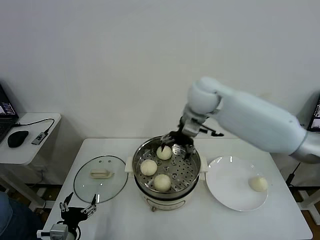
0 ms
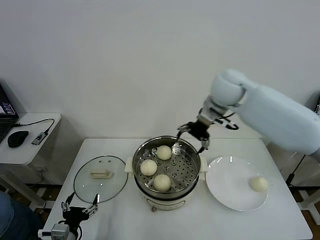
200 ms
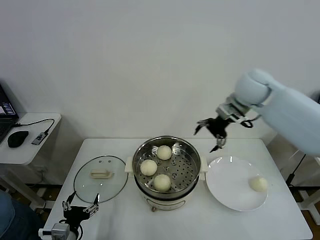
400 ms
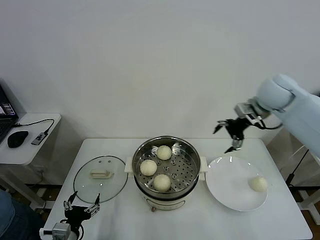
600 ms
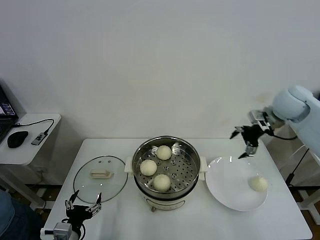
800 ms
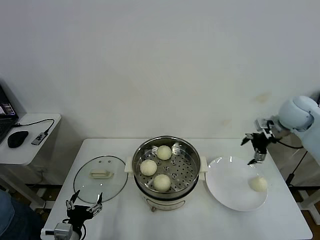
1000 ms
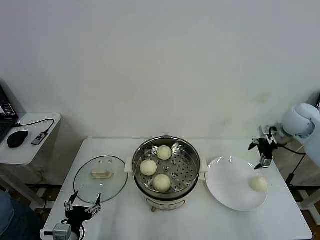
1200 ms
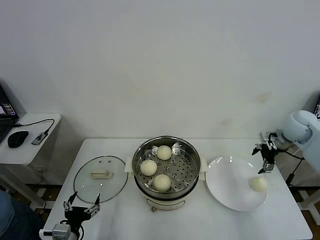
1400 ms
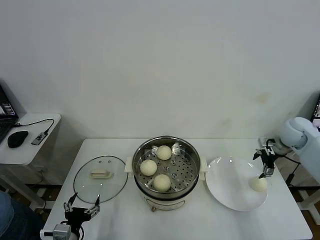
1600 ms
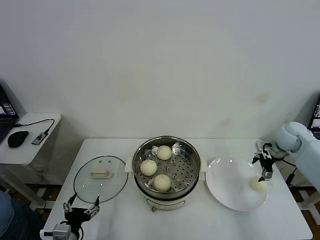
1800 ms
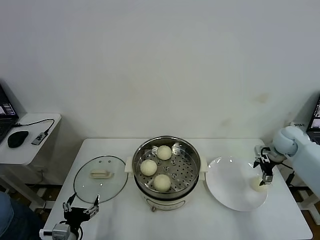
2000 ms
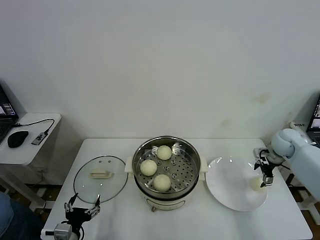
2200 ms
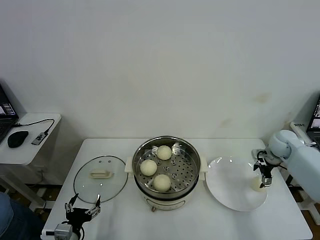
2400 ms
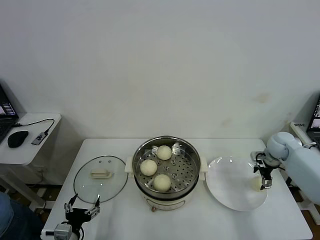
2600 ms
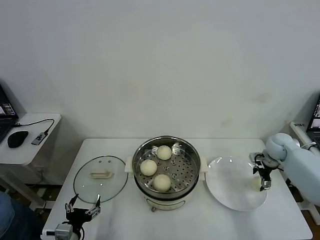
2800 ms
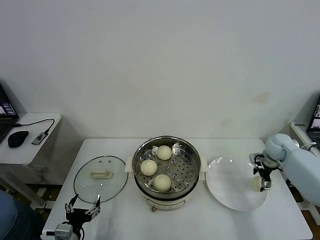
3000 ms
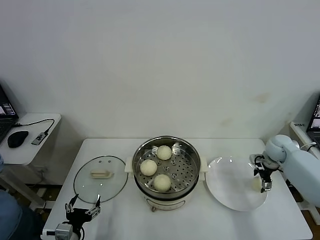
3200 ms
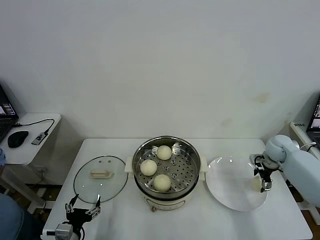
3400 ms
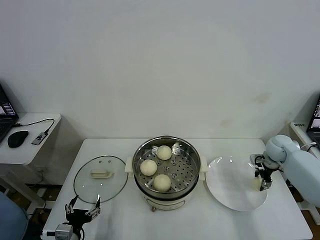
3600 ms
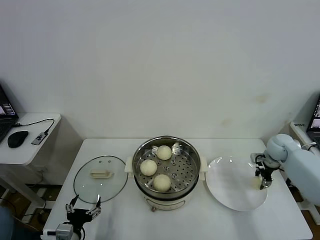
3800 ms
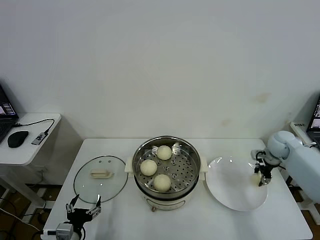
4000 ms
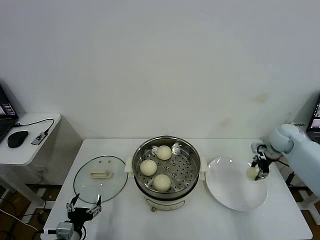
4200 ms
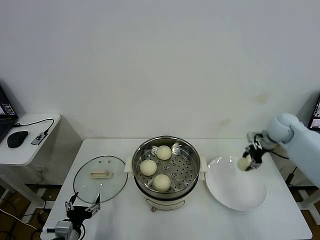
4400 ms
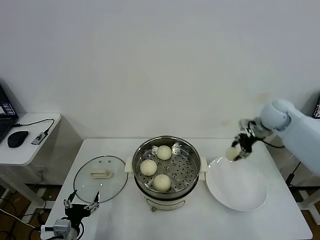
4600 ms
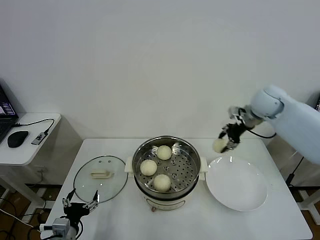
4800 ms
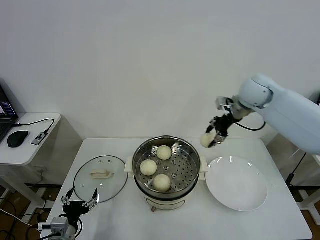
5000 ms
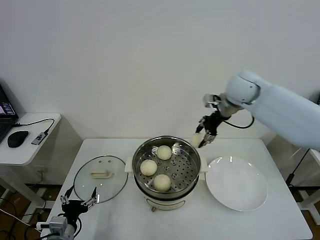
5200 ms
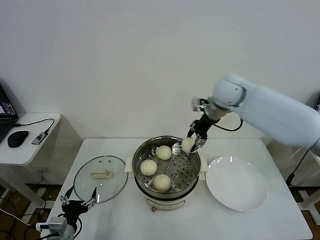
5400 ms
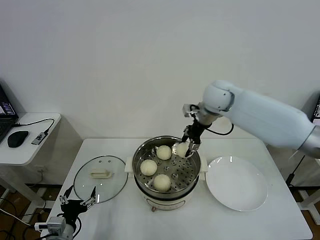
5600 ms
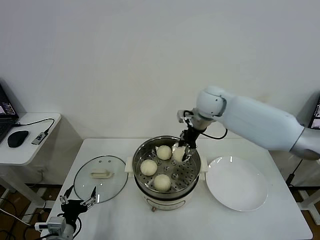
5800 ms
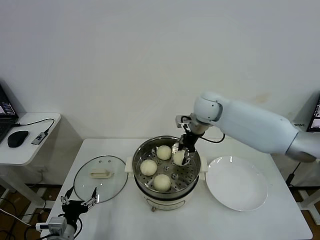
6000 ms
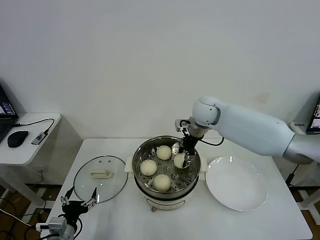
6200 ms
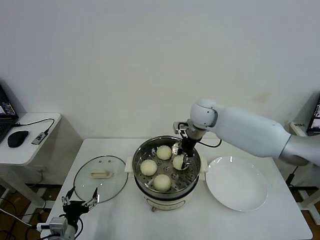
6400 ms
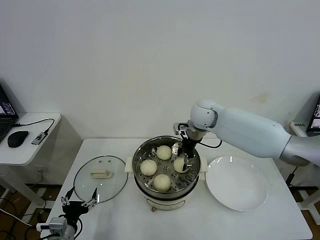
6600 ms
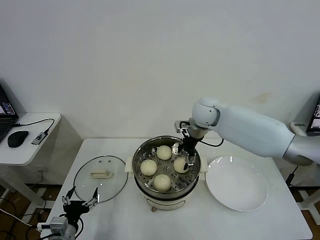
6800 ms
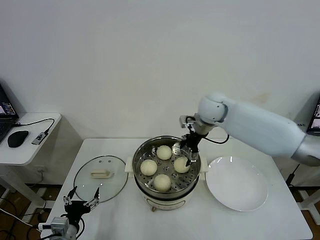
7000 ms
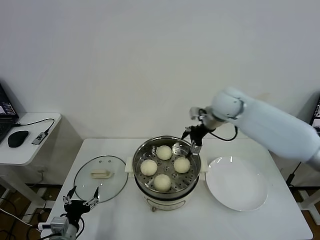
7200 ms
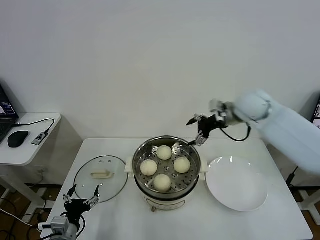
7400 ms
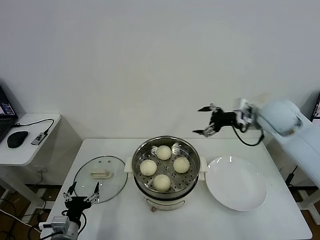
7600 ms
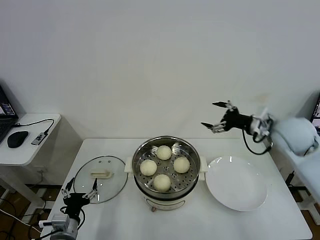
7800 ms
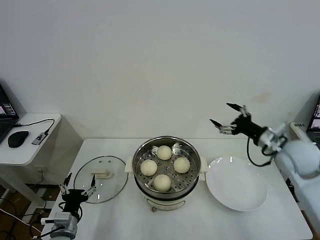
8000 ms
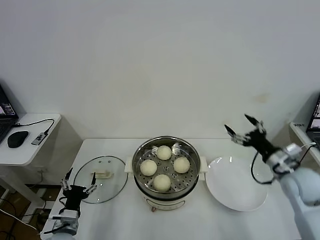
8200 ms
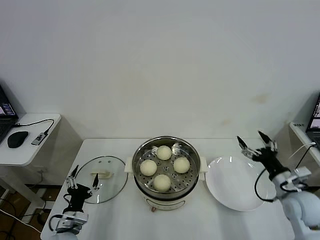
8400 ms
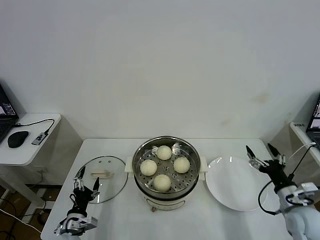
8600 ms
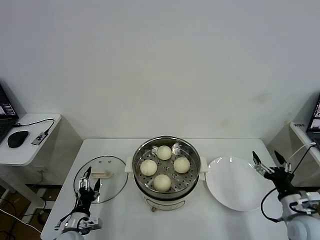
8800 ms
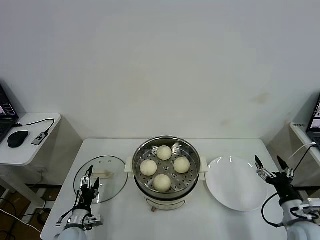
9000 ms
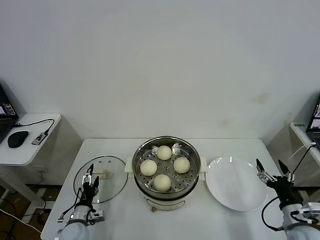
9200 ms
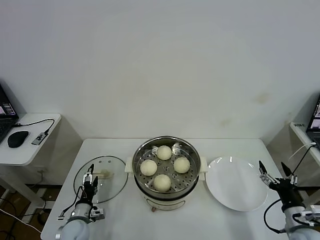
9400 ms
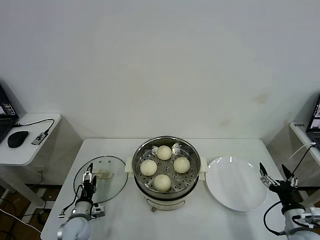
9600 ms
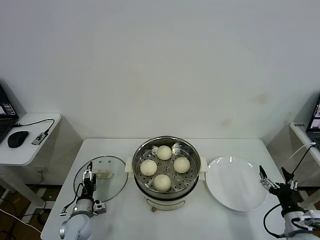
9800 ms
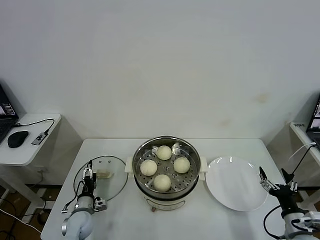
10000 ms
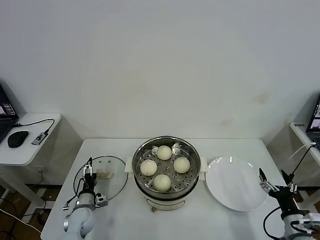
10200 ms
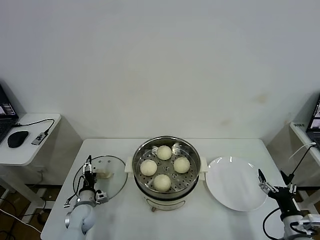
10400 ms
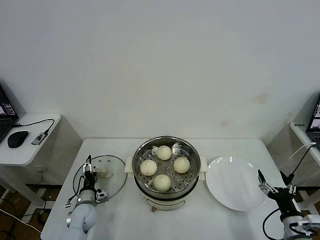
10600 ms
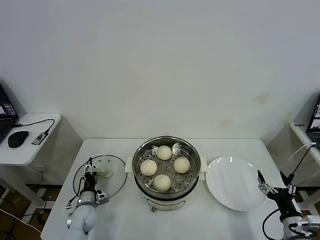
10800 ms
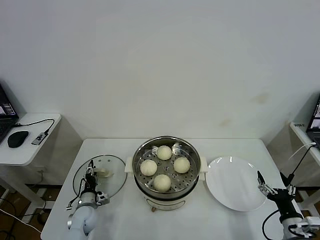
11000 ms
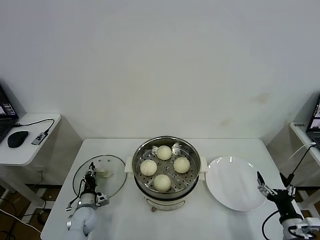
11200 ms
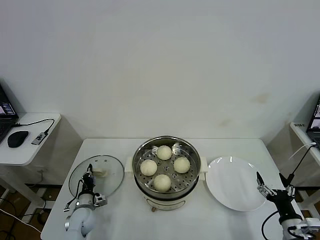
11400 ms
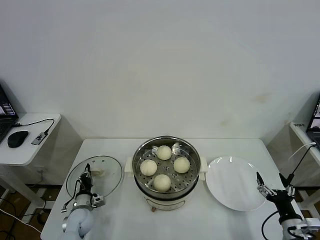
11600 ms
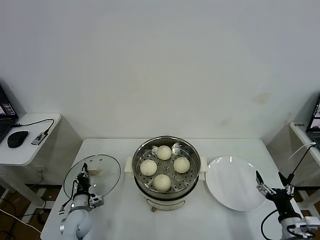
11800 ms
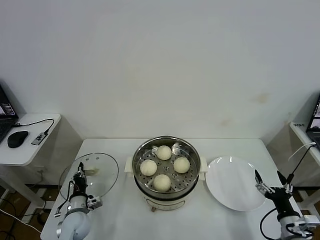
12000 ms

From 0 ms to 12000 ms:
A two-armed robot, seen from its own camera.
Task of the whole recording: take steamed baozi put them in steamer then cover it.
Step, from 0 ms to 3800 ms: Grasp the baozi in the plate with right gripper.
Step, from 4000 ms to 6800 ms: Place the baozi on the steamer with right gripper.
Step, from 7000 ms to 11400 ms: Grasp the pot lid with left gripper.
From 0 ms to 1600 ms: The right gripper shifts approximately 35 cm to the right and downward.
From 1600 ms to 3000 ms: The right gripper goes some 10 cm downward.
From 3000 ms to 4400 ms: The right gripper travels upward by some 10 cm, and closes its fingers.
From 4400 ms to 6000 ms: The right gripper shifts roughly 25 cm to the left.
From 6000 ms to 7600 ms: The right gripper travels to the right and backward by about 20 cm, and opens up.
From 7600 ms to 9000 ms: The left gripper moves downward and forward, some 10 cm; the right gripper moves backward and downward, roughly 35 cm.
From 9000 ms to 10400 ms: The left gripper goes some 10 cm forward.
From 10400 ms to 12000 ms: The left gripper shifts by roughly 5 cm, and closes.

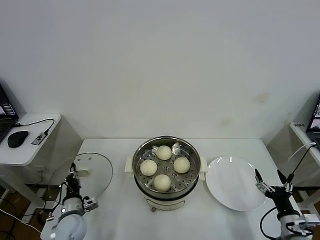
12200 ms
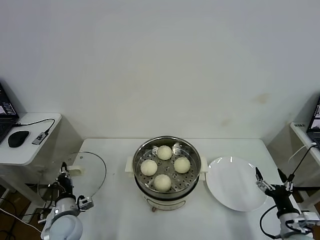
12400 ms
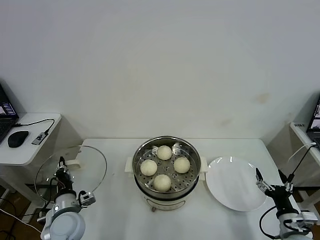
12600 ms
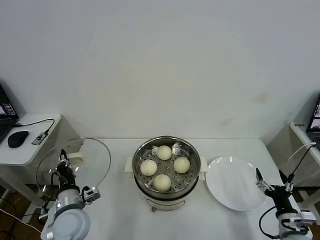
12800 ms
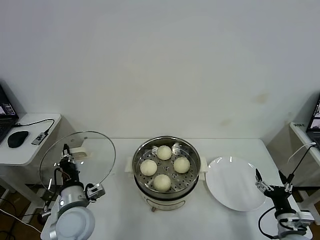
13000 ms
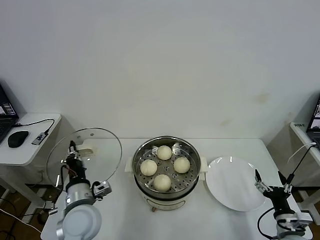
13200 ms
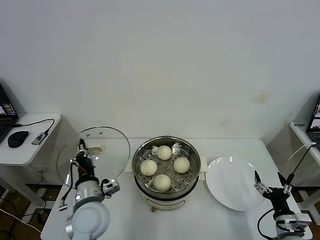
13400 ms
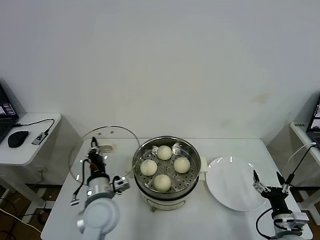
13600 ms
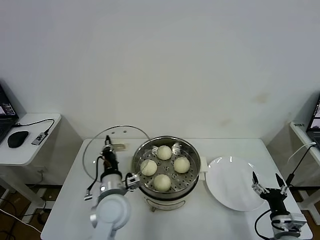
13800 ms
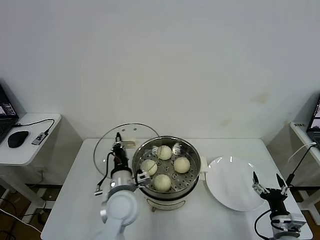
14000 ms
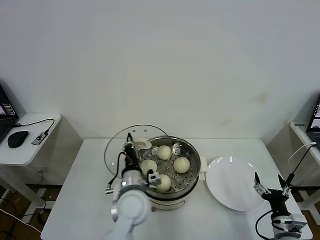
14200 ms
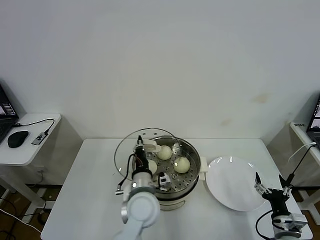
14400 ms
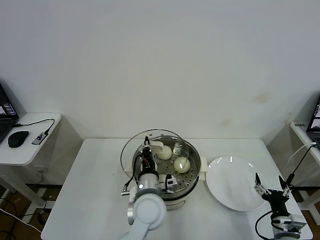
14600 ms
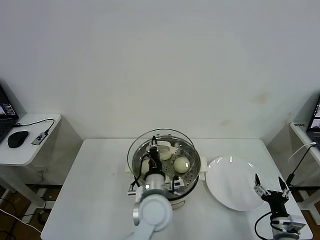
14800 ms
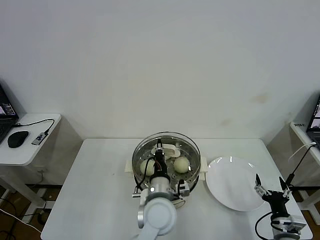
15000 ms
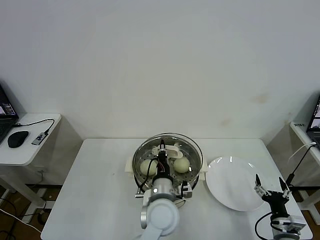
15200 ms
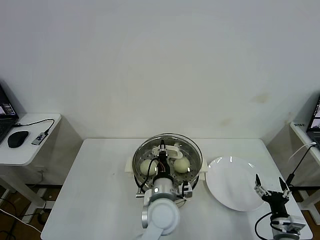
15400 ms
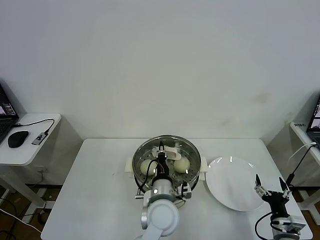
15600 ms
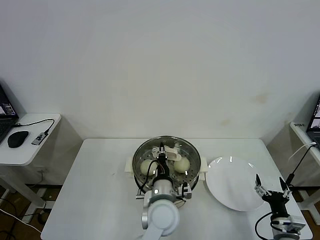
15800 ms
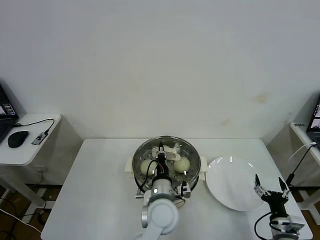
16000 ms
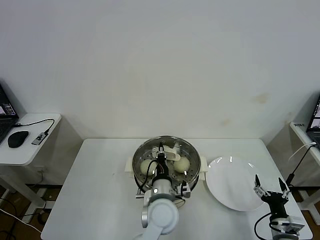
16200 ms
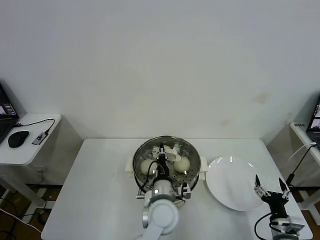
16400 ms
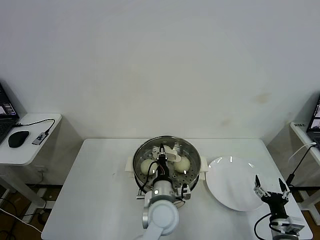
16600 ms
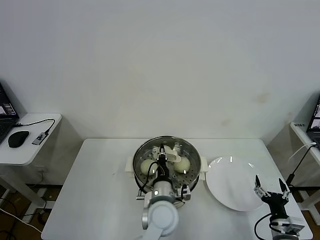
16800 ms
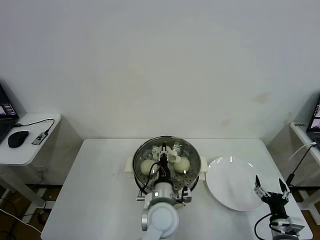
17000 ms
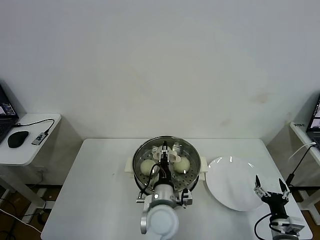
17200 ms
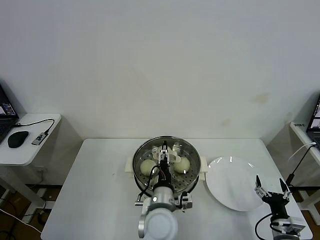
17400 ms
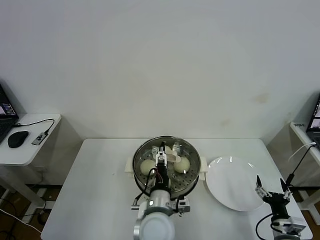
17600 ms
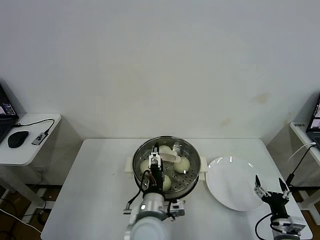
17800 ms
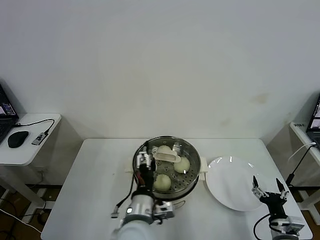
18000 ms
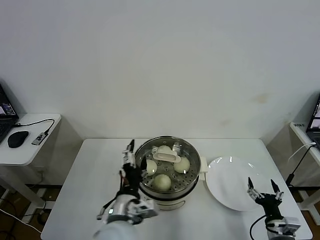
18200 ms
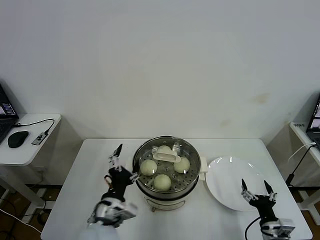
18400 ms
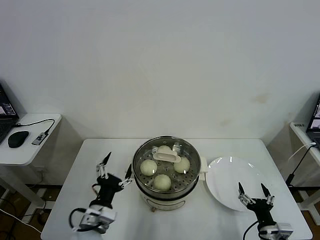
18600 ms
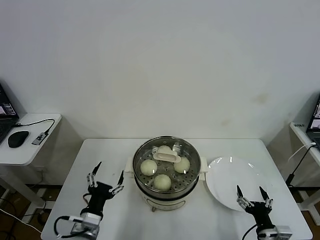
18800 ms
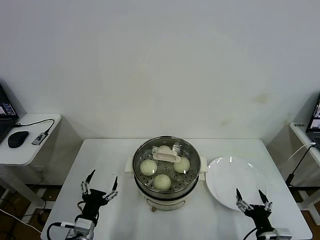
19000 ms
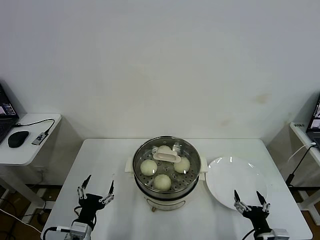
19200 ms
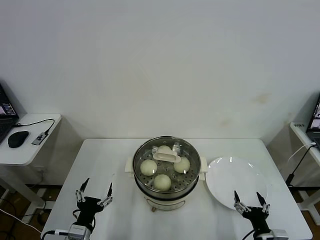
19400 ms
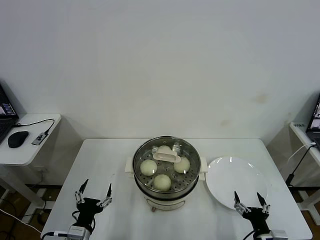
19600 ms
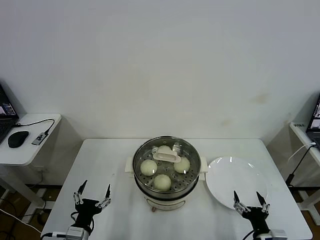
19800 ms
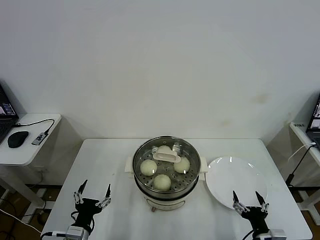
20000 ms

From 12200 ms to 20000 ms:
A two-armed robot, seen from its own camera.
Task of the whole recording: take steamed baozi put them in steamer then cover it.
Step, from 12200 ms to 17600 ms: Place the pot lid on the steamer with left gripper.
From 12200 ms to 13800 ms: The left gripper shifts roughly 20 cm to the right and upward.
From 13800 ms to 15400 ms: The left gripper goes roughly 15 cm to the right.
From 15400 ms to 16800 ms: The grippers make only small movements.
From 16800 ms to 18400 ms: The left gripper goes some 15 cm to the left and backward, and opens.
From 18400 ms to 20000 ms: The left gripper shifts approximately 15 cm to the left and downward.

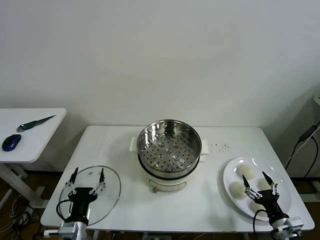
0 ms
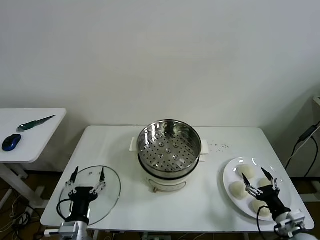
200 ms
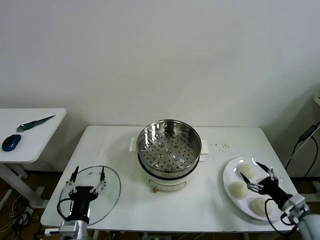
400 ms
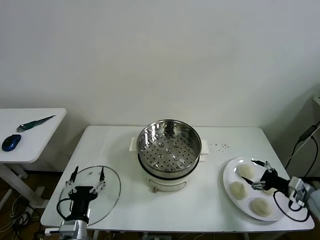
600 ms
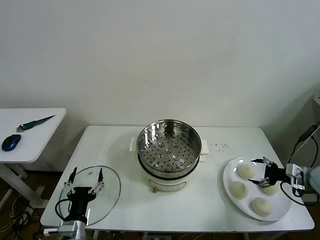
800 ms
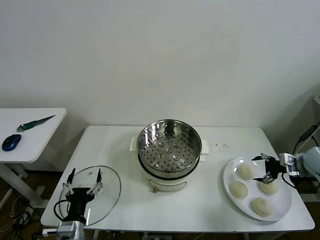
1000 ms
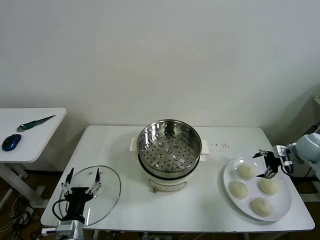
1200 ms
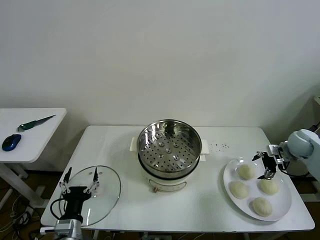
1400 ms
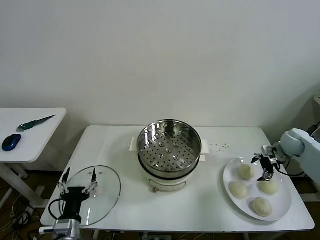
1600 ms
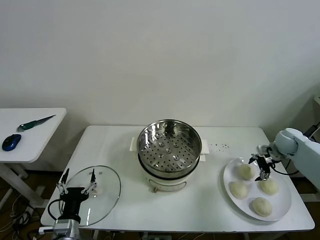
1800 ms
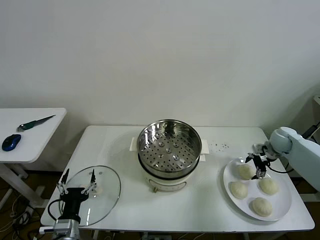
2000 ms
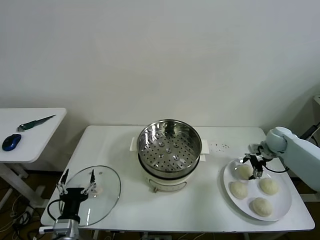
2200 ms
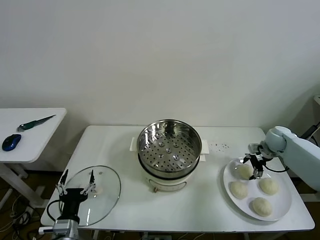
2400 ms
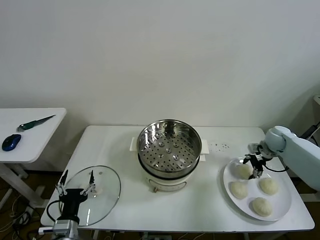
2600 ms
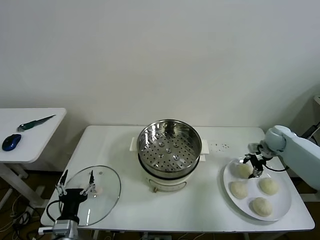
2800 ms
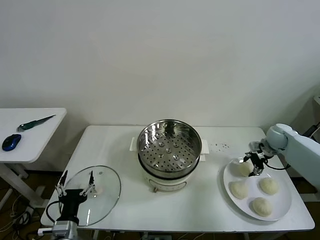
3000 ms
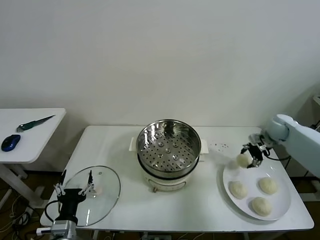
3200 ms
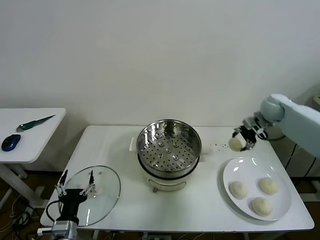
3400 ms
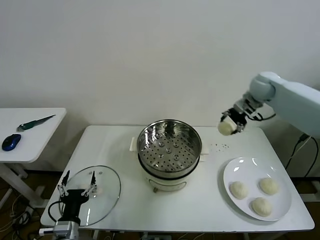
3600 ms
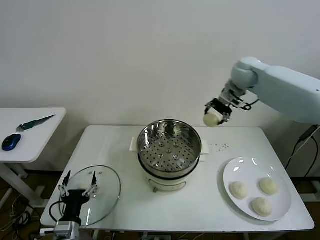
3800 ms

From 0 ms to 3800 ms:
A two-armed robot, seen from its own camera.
Task of the whole recording: take steamed baozi put them in steamer then cover it.
Step, from 0 ms to 2800 ms: Grasp the baozi in the plate with right gripper.
From 1200 ms to 2600 ms: The right gripper goes about 10 cm forward and to the left, and closes up.
From 2600 ms to 3800 ms: The right gripper goes about 35 cm upward and to the left.
